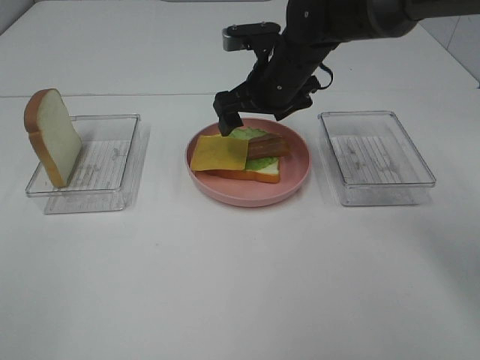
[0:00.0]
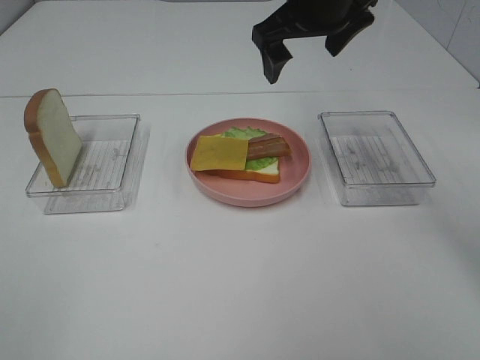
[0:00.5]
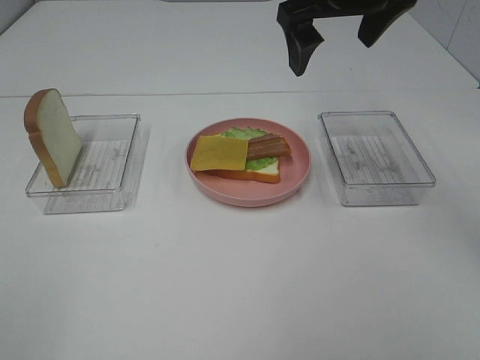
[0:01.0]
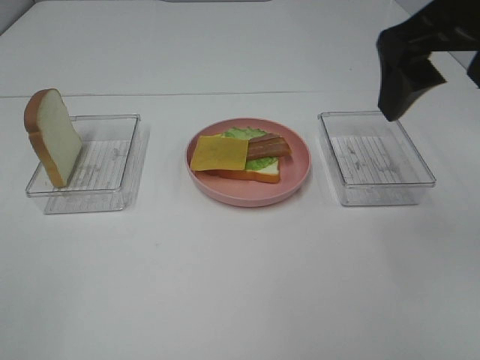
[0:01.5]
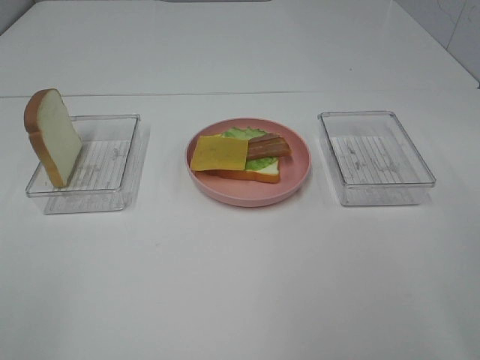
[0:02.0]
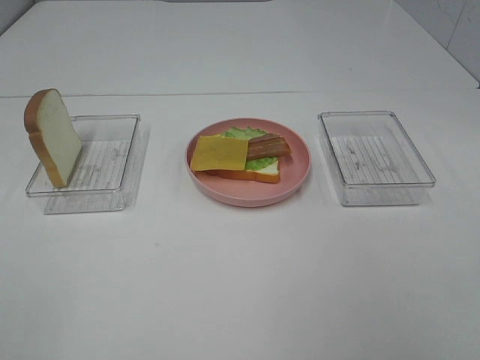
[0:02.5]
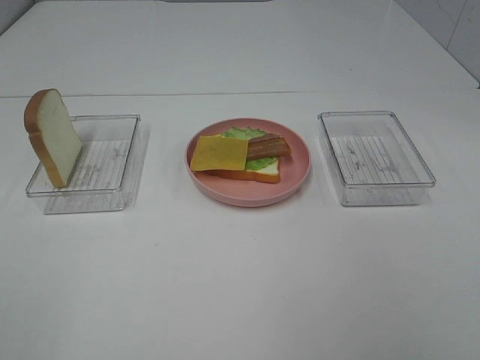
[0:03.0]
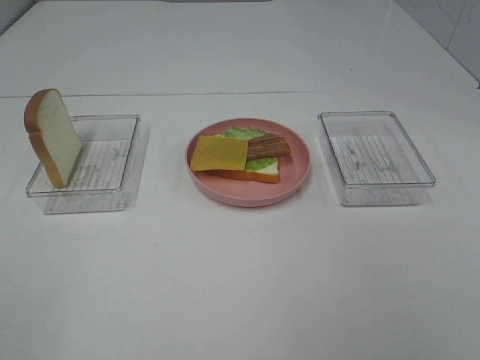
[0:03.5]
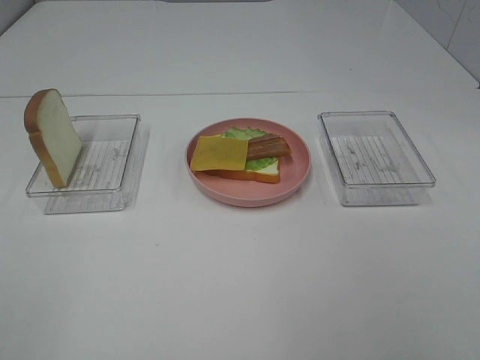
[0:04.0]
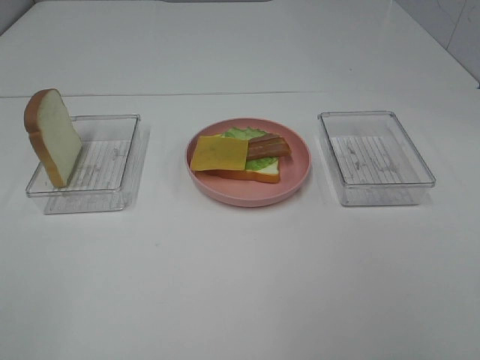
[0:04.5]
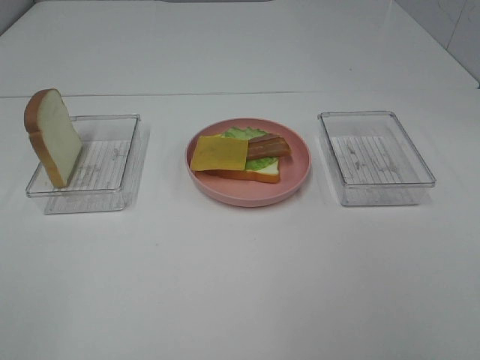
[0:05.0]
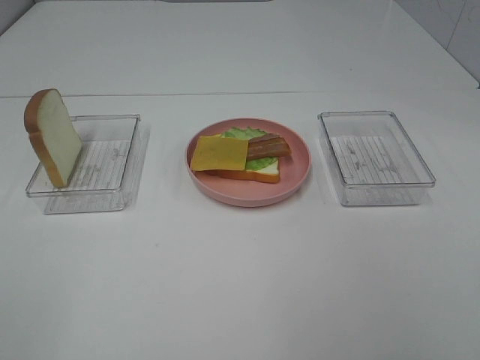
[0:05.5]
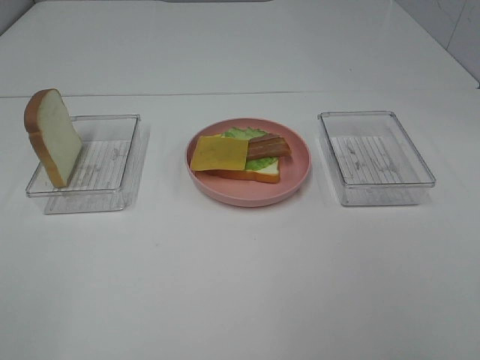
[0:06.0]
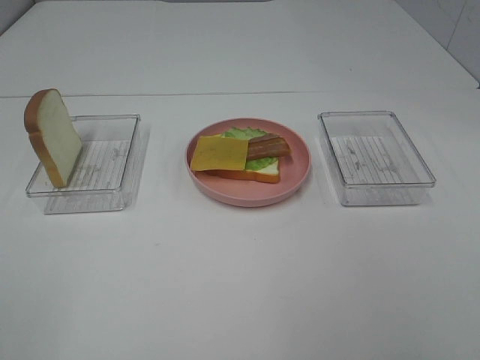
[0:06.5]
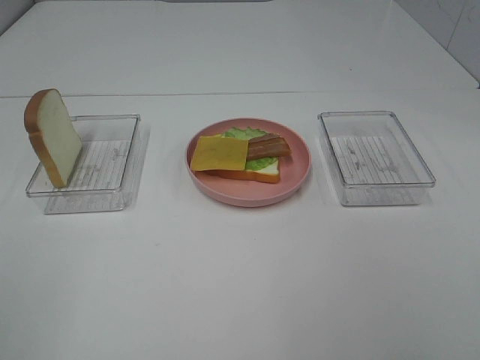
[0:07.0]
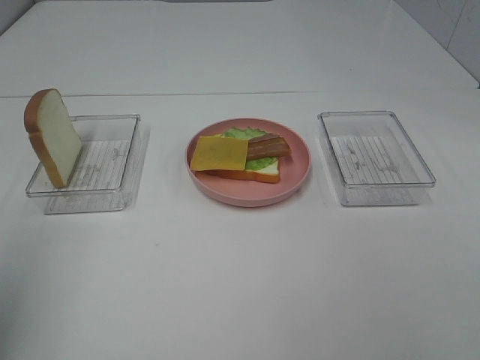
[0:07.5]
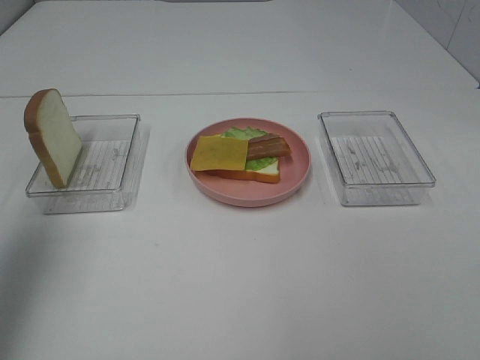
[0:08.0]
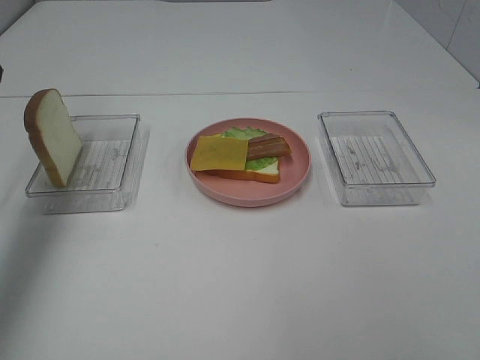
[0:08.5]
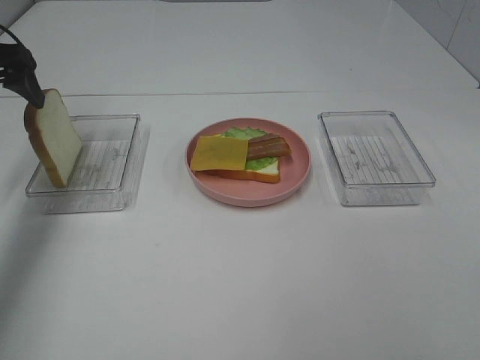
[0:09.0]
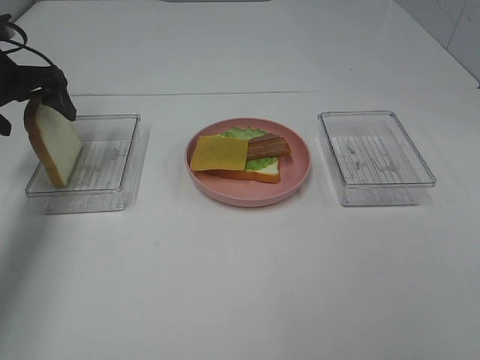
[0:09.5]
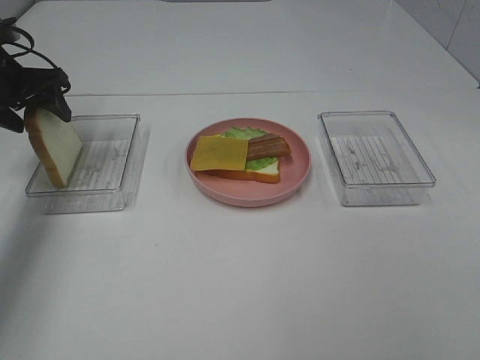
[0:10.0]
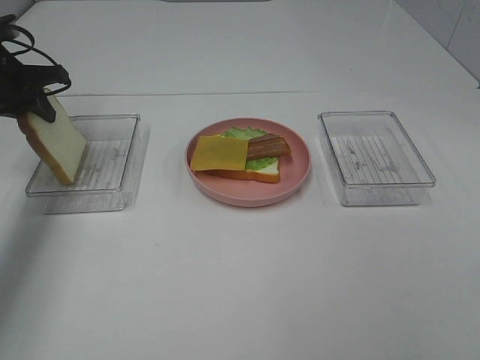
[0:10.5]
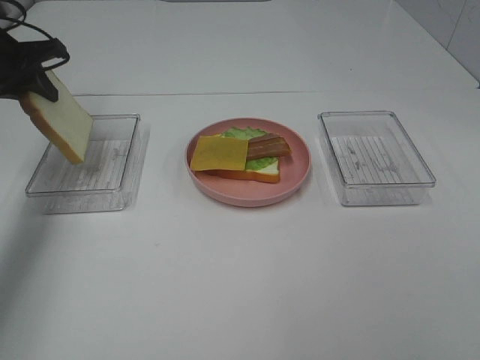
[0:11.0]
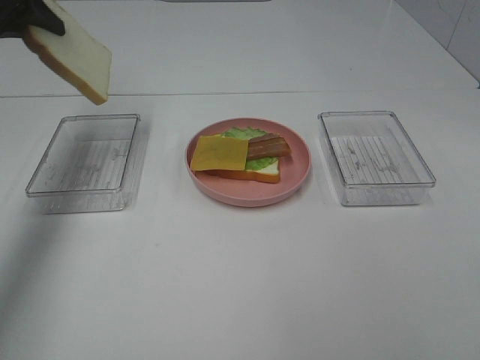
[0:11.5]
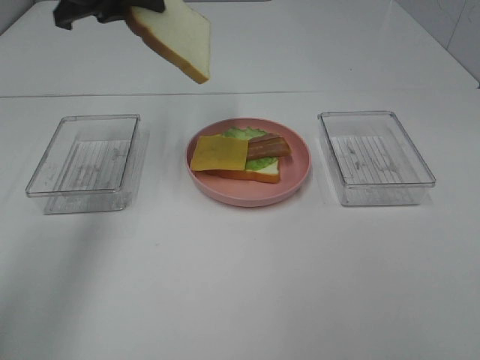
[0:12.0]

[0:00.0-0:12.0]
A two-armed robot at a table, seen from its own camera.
Task of the whole recording: Make sandwiches.
Step, 0:00.0 to 0:10.5: Left hand:grab the bread slice.
0:00.0 to 0:02.0: The right gripper goes some 35 cm backward, to the right and upward.
0:04.0 to 0:06.0: Both grippers stay put.
0:06.0 to 0:08.0: The left gripper travels forward by some 25 cm.
0:08.0 to 0:10.0: The left gripper goes approximately 25 cm forward and downward, and closes its fingers.
0:10.0 to 0:12.0: The left gripper heads to the right and upward, covering some 20 cm, and closes.

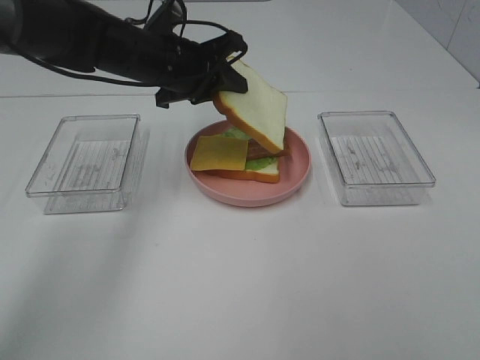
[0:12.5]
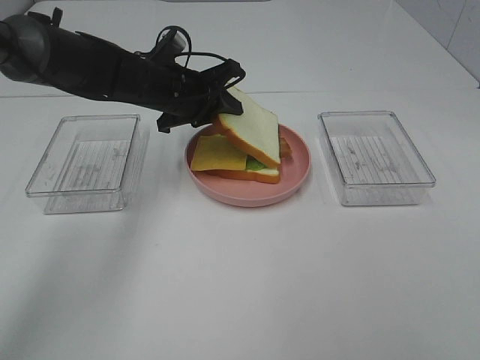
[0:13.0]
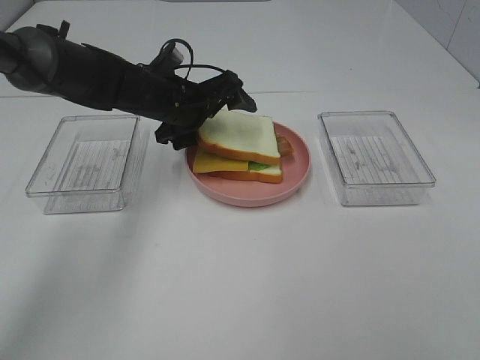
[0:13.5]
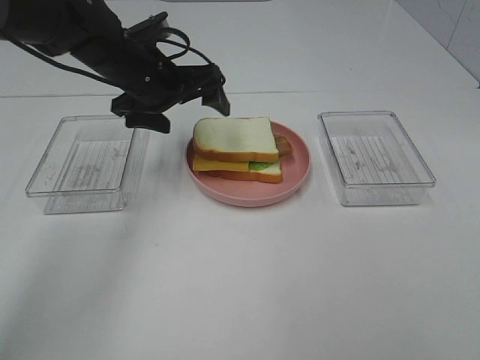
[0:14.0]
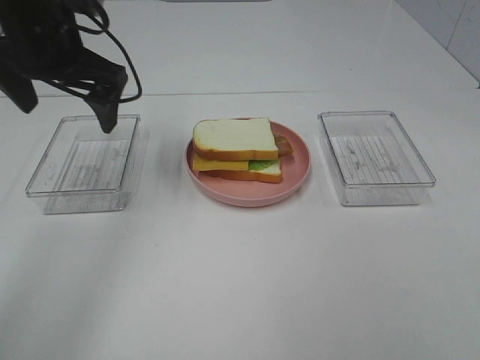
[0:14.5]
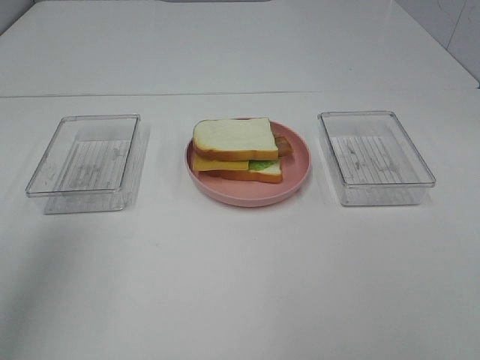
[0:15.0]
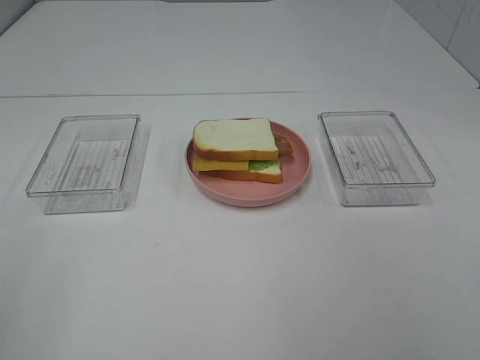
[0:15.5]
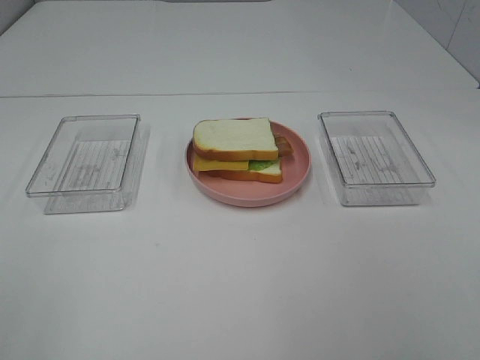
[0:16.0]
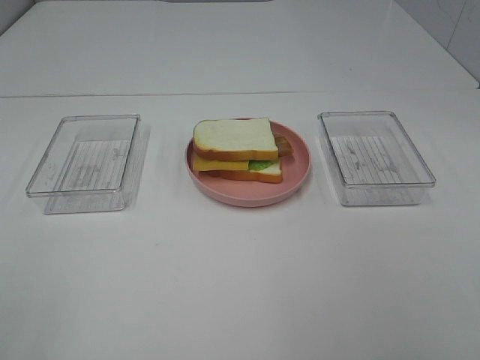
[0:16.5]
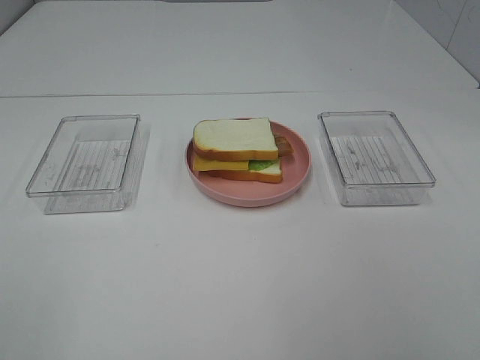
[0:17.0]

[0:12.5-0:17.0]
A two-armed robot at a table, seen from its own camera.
Task of the whole recording: Make sandwiches.
0:12.5 to 0:14.5: The left gripper is displaced upward, to the left and backward by approximately 15 cm, and opens up.
0:14.5 to 0:17.0: The left gripper goes about 40 cm backward.
